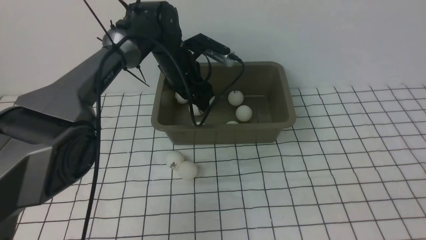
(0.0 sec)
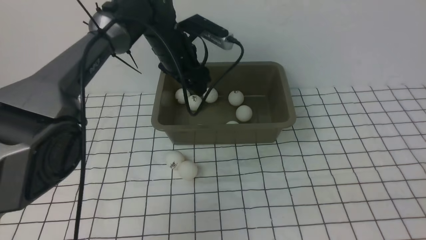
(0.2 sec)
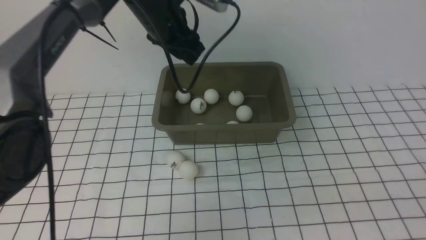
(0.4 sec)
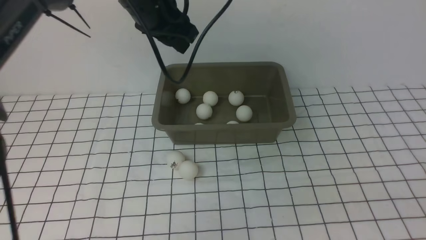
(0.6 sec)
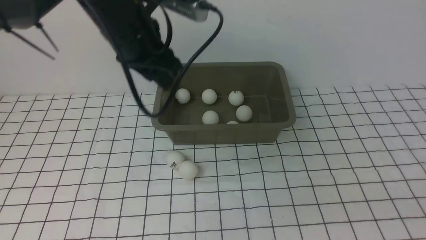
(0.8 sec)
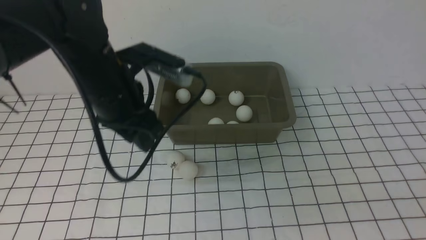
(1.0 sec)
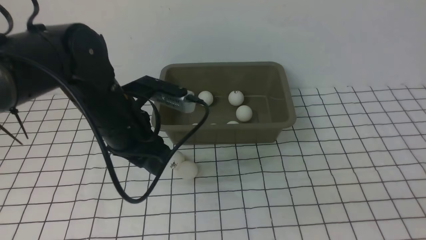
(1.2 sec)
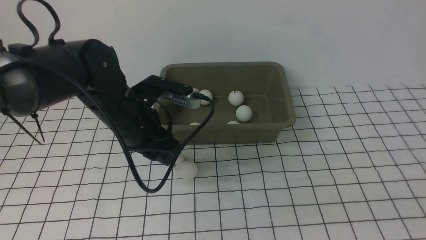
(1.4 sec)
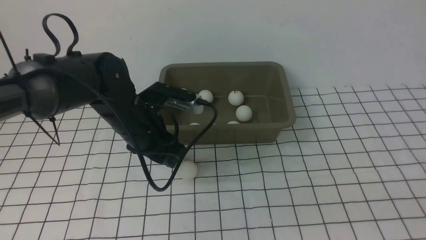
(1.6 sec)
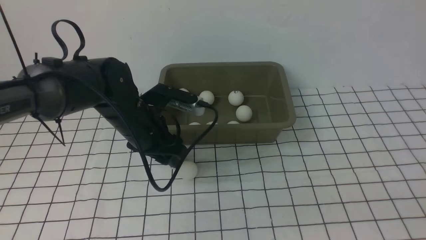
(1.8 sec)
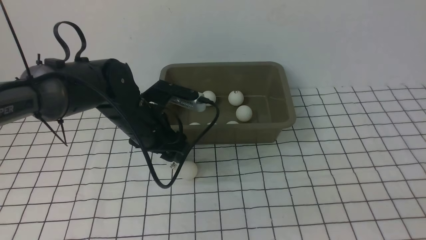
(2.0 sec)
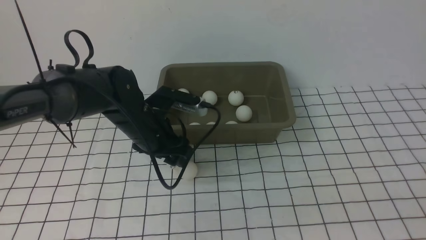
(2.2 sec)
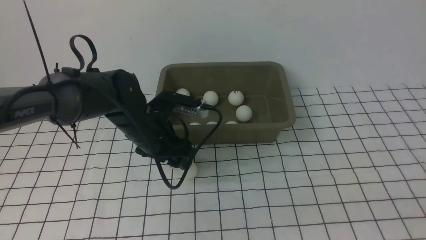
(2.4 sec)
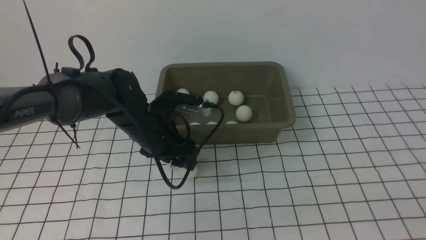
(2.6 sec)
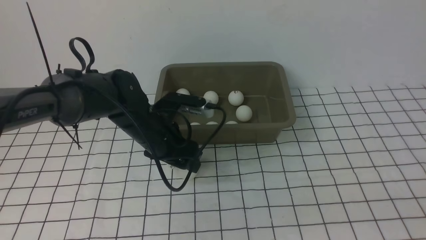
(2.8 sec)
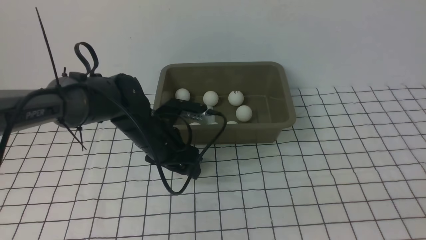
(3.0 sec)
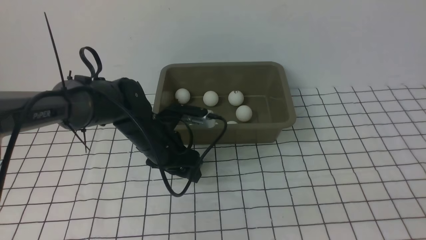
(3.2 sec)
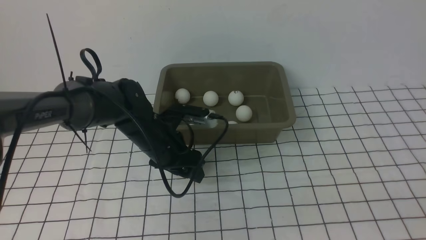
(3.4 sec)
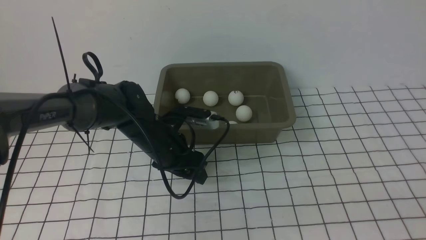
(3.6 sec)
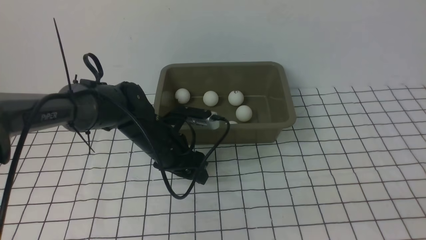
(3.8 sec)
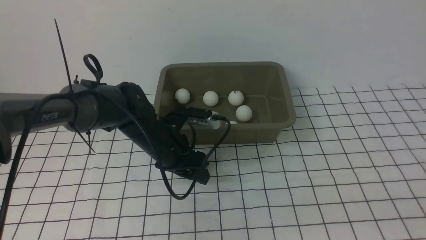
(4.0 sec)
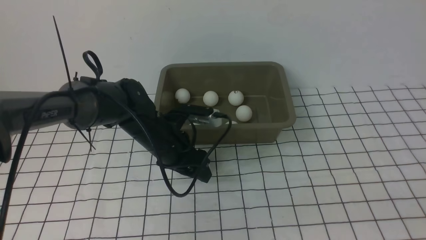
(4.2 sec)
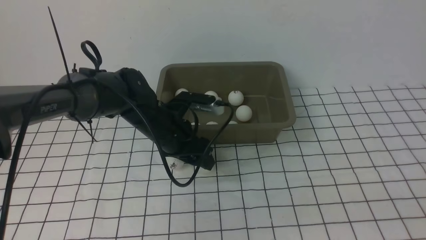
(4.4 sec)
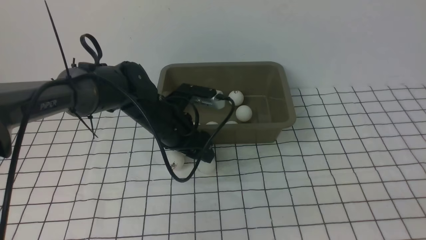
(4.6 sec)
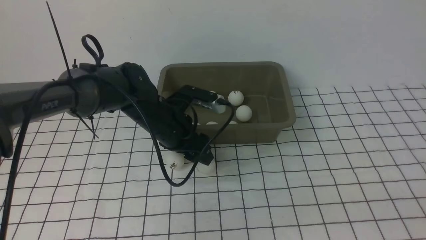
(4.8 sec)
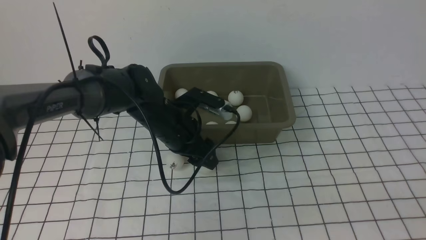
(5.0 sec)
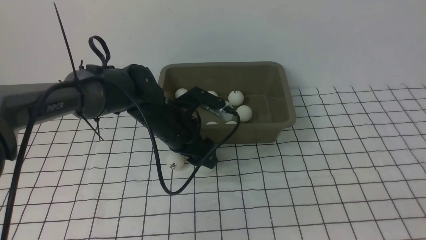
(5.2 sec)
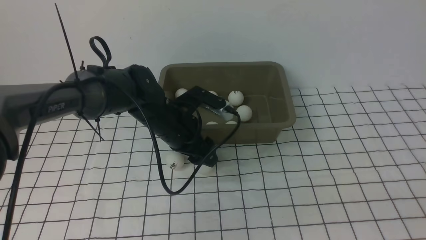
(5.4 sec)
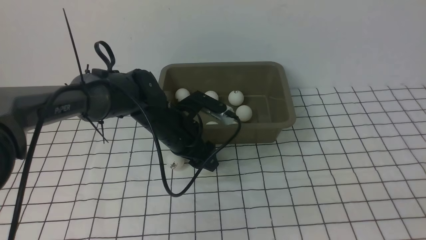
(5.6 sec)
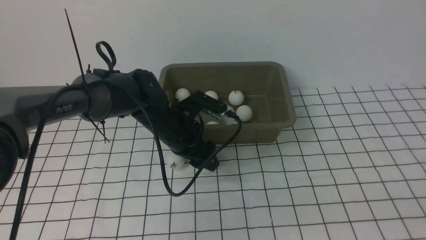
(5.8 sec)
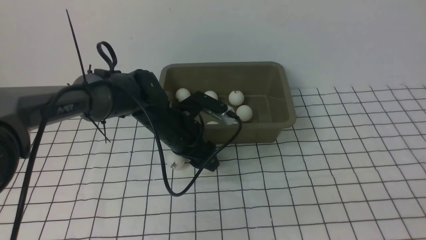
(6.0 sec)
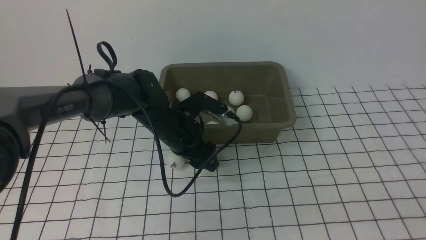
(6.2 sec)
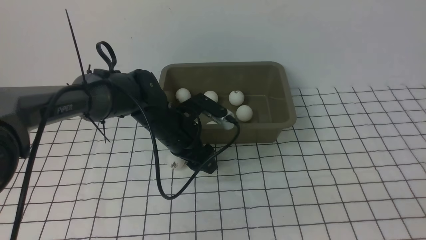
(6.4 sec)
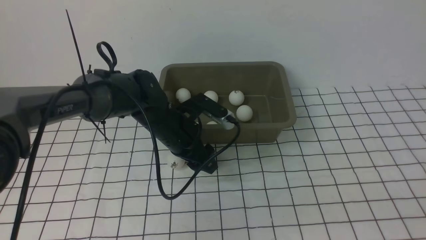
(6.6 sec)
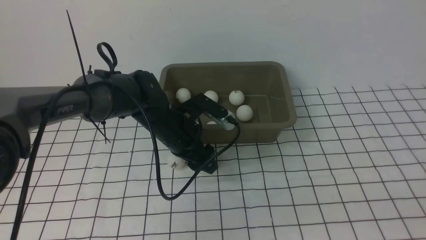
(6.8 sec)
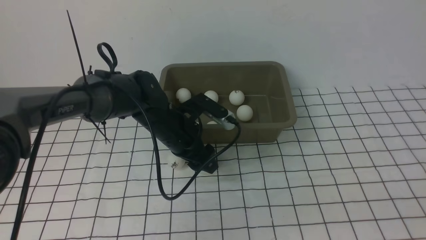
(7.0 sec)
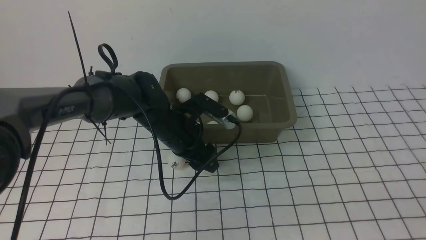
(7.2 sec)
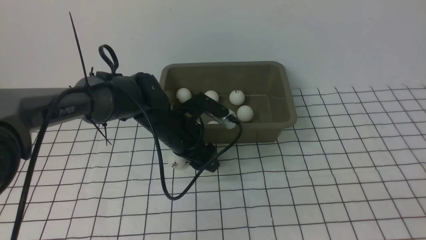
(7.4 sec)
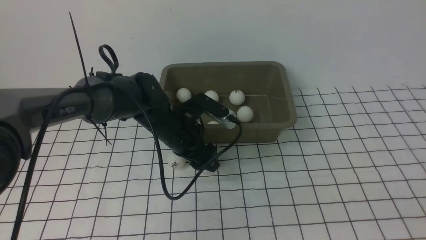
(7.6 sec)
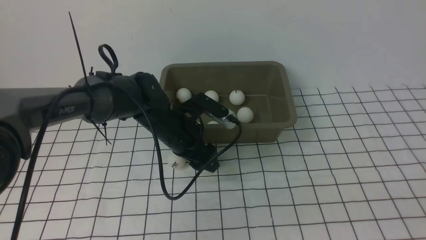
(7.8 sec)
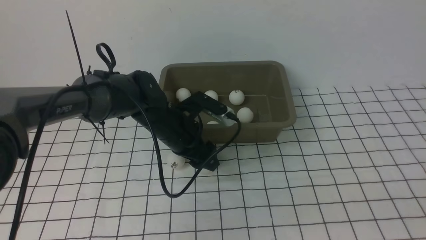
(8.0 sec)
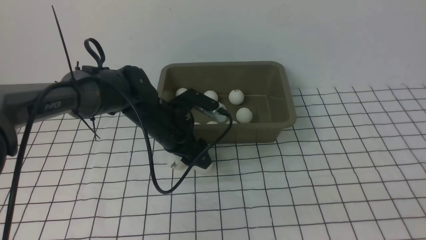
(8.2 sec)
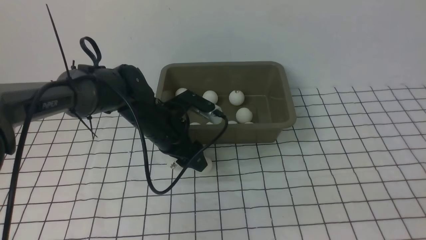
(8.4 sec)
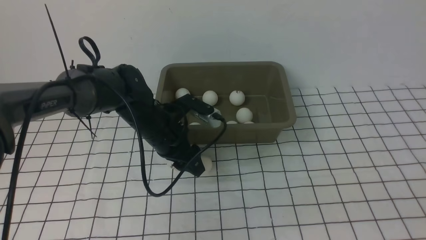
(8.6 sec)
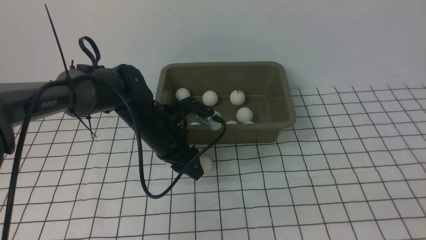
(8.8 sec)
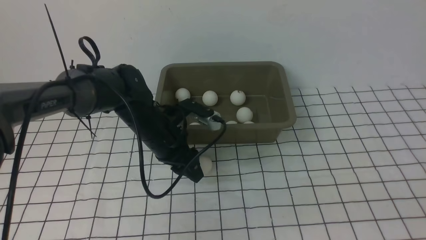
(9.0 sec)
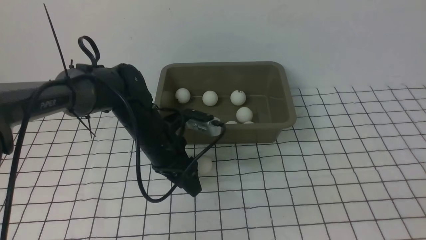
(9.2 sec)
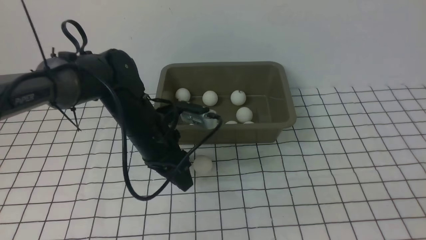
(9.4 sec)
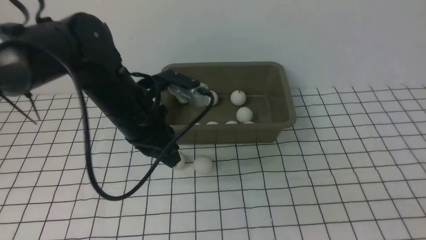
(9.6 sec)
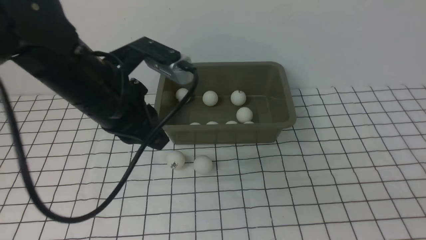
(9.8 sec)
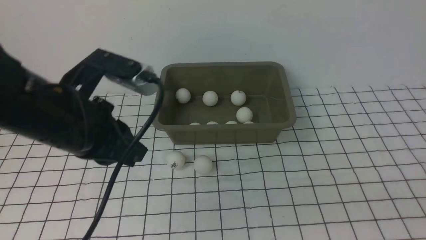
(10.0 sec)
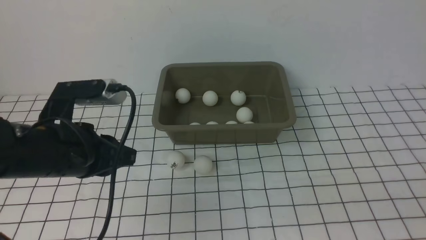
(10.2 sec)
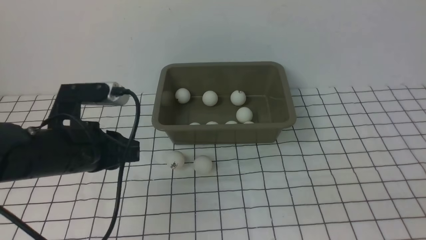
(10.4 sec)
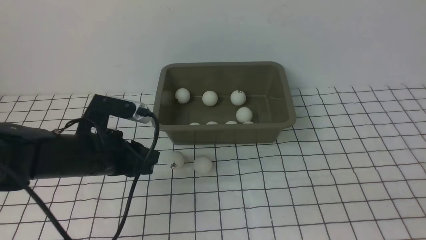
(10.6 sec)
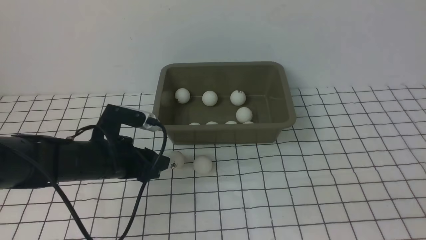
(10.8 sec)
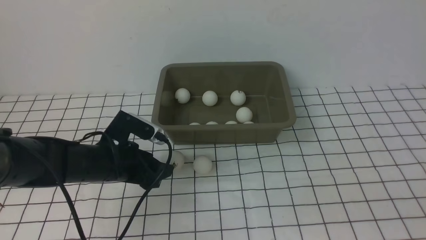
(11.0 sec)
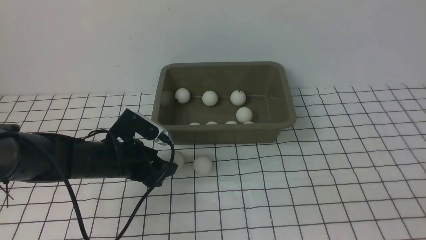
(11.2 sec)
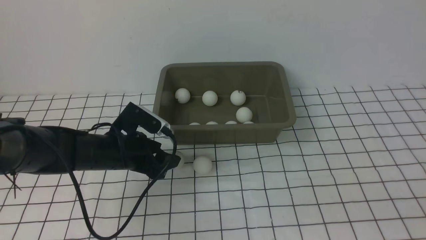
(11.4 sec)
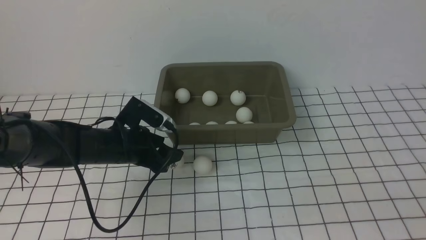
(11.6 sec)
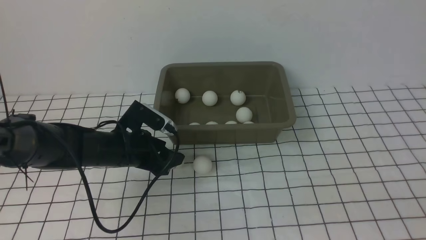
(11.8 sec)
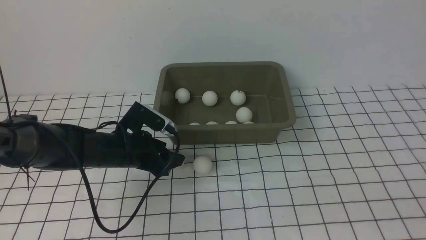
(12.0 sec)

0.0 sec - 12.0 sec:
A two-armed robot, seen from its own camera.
0.0 sec - 1.6 sec: The left gripper shifts approximately 15 cm backward.
1.6 sec - 3.0 sec: The left gripper heads downward, covering roughly 5 cm.
3.0 sec - 6.0 sec: The grippers stay close to where they were, moving slightly.
6.0 sec - 7.6 sec: The two grippers keep their place.
7.6 sec - 9.0 sec: The grippers move only a little.
9.0 sec - 10.4 sec: The left gripper shifts about 15 cm backward, to the left and upward, and closes its fingers.
10.4 sec - 12.0 sec: The left gripper heads downward and forward, covering about 15 cm, and opens its fingers.

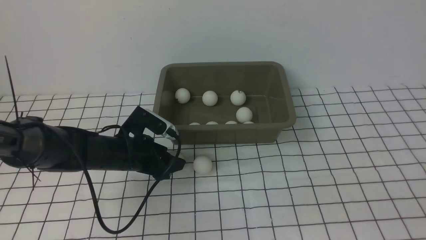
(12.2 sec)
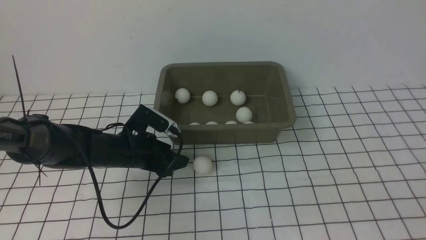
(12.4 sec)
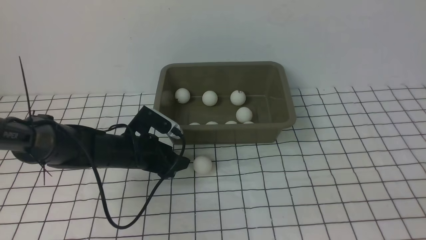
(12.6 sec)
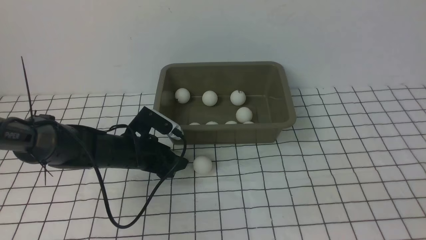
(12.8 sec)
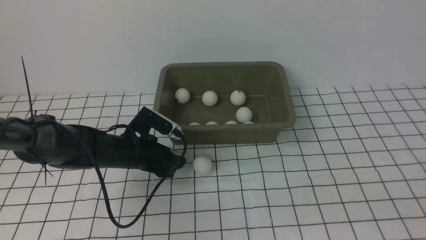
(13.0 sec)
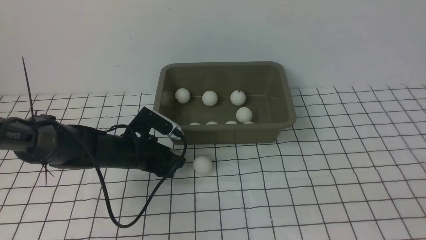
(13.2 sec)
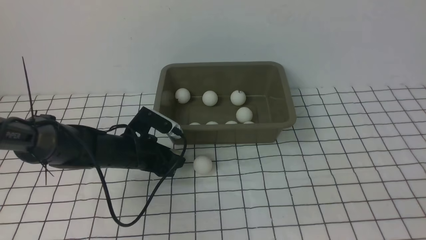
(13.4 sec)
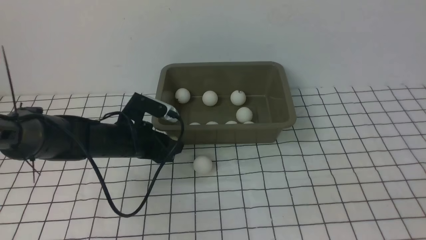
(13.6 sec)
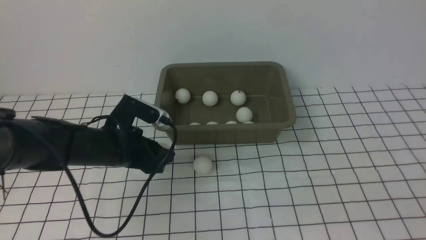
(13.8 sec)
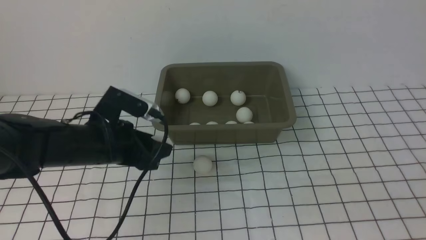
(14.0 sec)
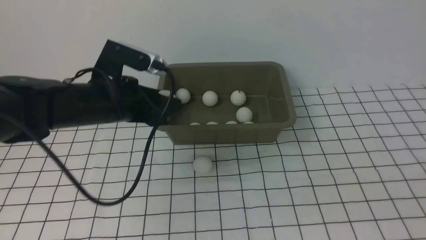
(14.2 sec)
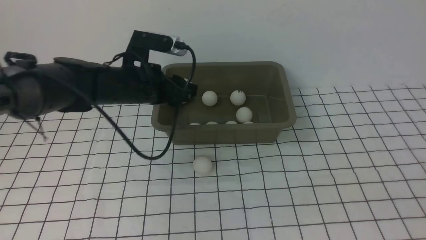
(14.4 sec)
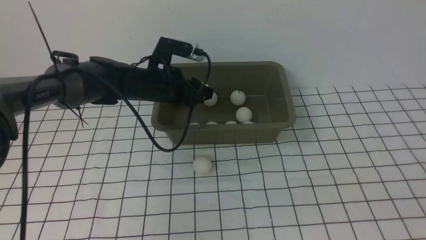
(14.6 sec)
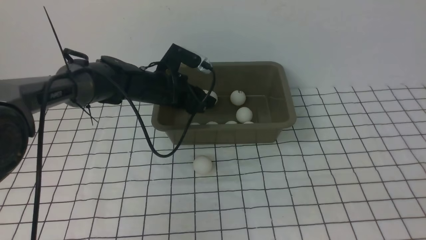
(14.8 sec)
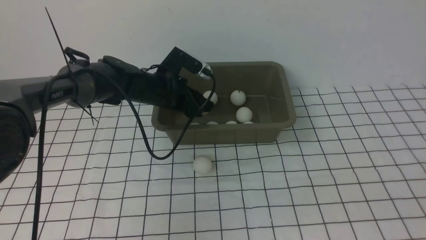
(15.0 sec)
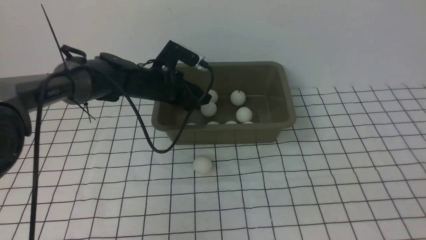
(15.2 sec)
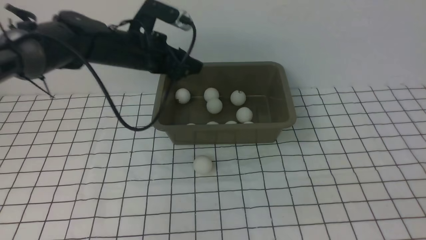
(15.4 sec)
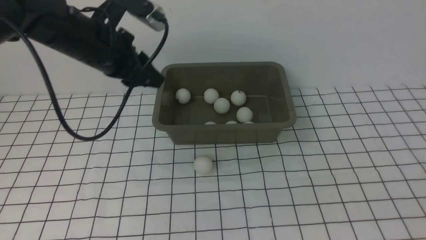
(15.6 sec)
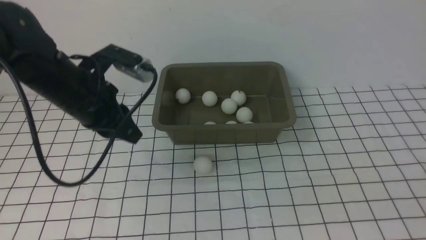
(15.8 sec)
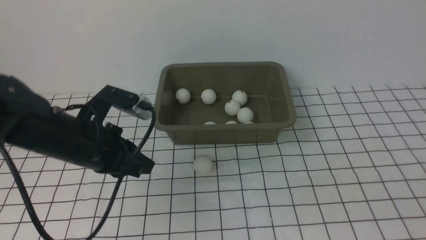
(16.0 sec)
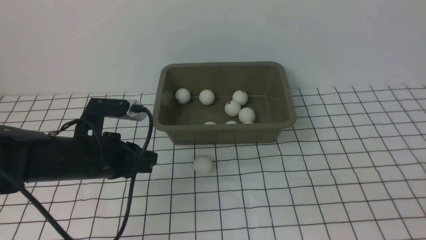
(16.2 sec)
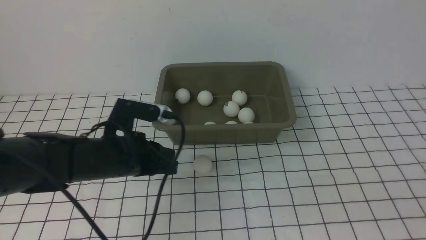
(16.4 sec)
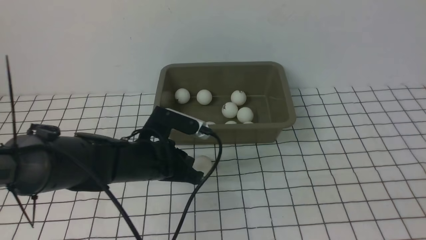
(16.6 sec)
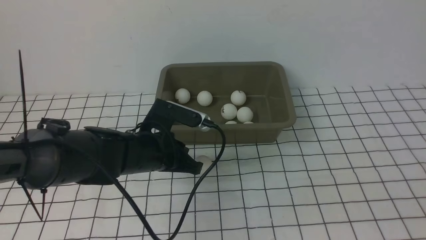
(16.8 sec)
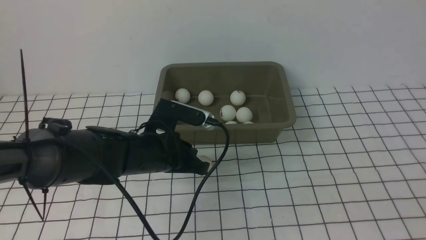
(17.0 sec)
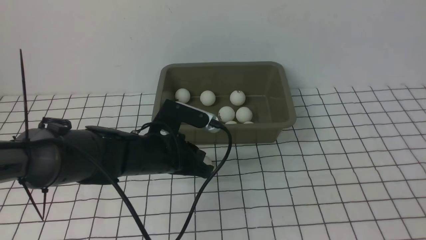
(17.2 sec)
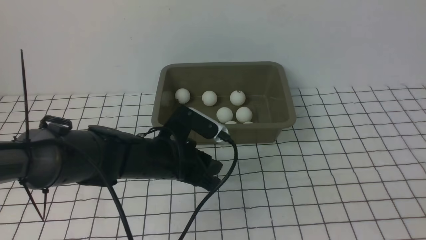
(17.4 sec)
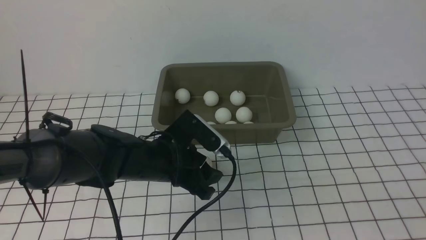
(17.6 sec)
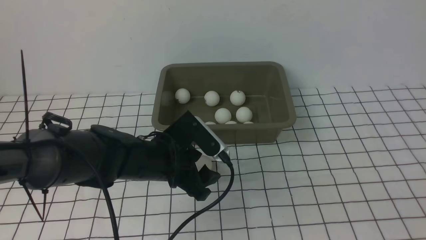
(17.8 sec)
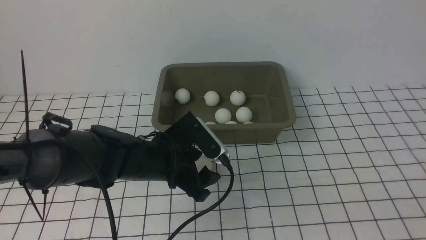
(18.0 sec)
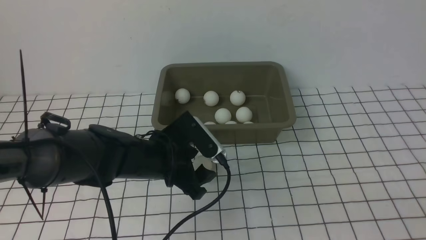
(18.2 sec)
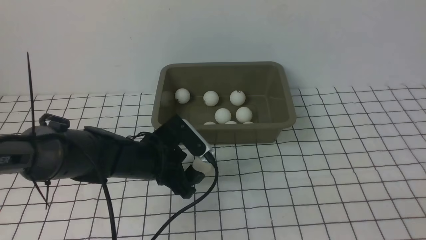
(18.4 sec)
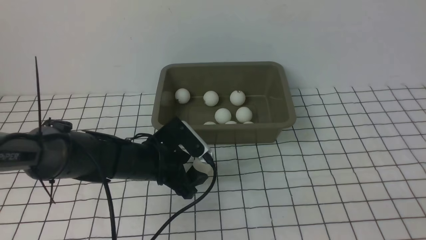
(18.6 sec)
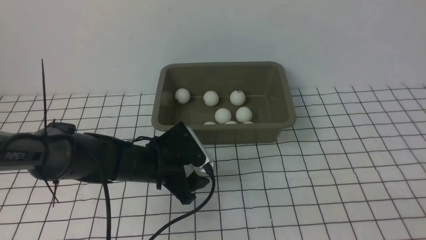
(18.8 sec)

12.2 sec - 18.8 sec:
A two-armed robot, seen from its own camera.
Step, 14.0 sec - 15.2 sec: use the left arm to put the table tennis ball into the box.
12.2 sec - 13.8 sec: The left gripper heads upward, covering roughly 5 cm.
13.8 sec - 15.4 sec: The left gripper travels upward and forward by some 15 cm.
15.4 sec - 17.2 sec: The left gripper shifts approximately 15 cm downward, backward and to the right.
17.2 sec - 18.8 sec: The left gripper opens.
